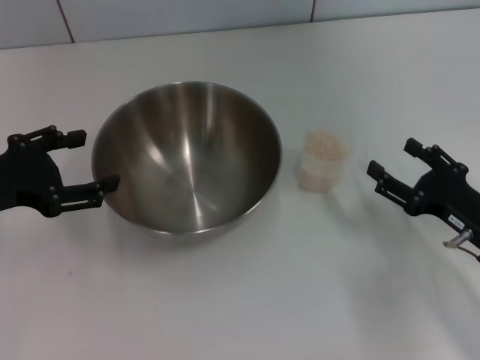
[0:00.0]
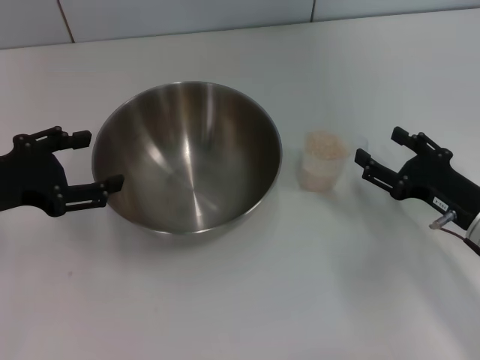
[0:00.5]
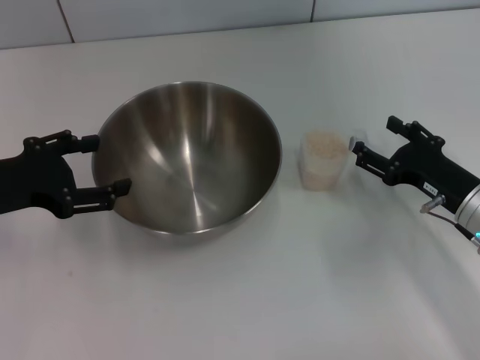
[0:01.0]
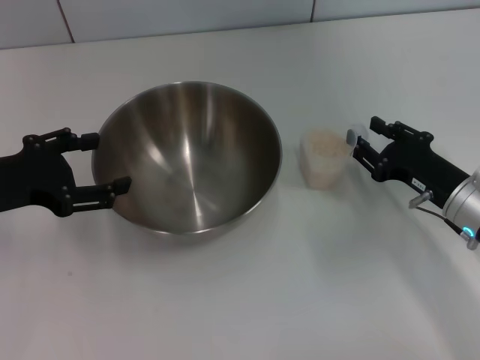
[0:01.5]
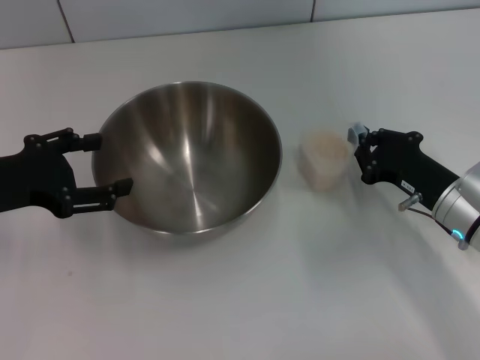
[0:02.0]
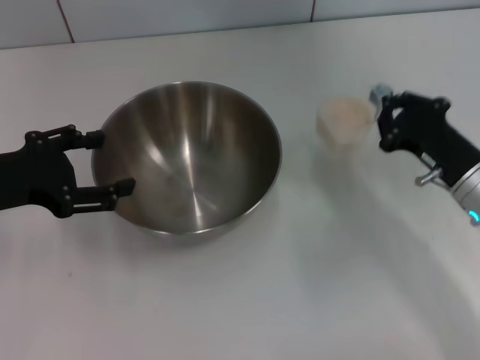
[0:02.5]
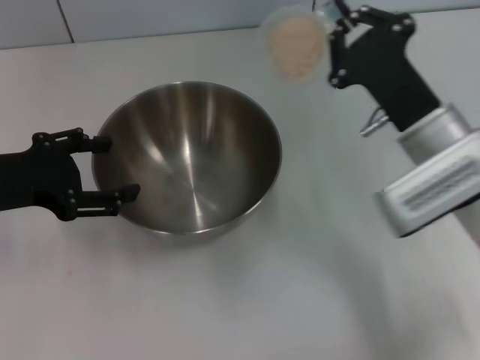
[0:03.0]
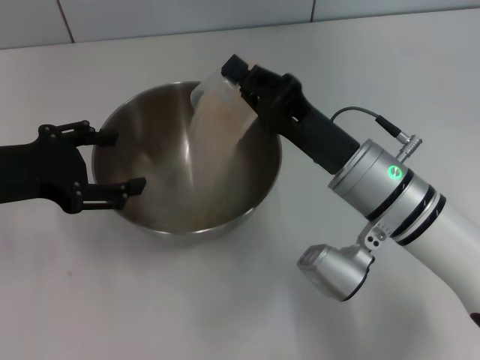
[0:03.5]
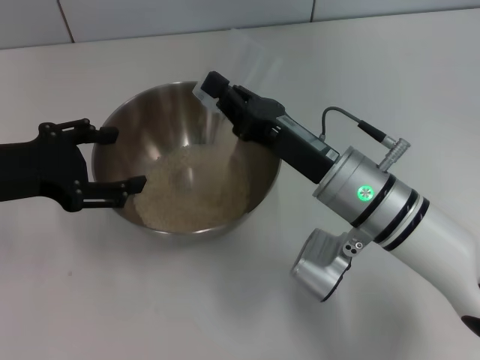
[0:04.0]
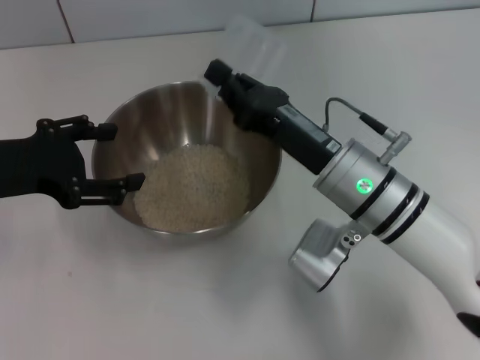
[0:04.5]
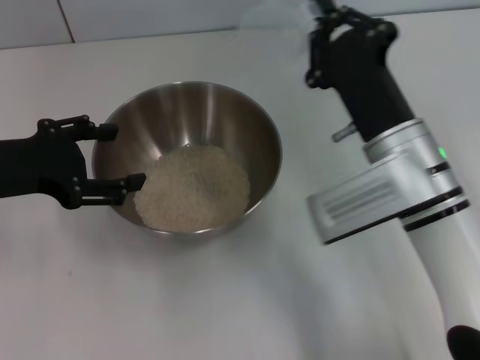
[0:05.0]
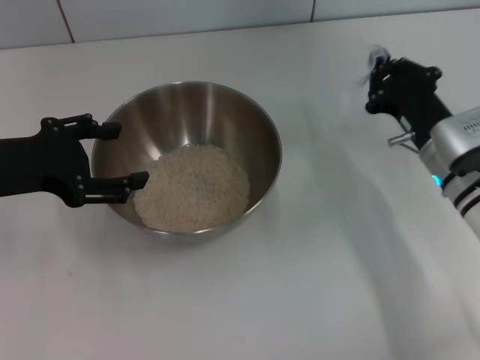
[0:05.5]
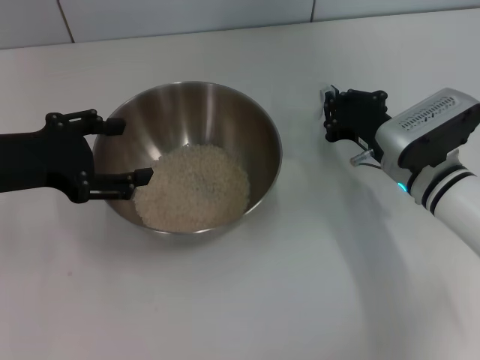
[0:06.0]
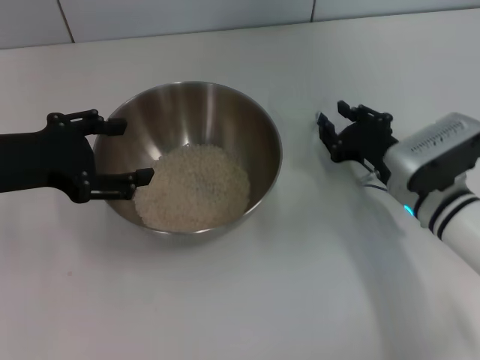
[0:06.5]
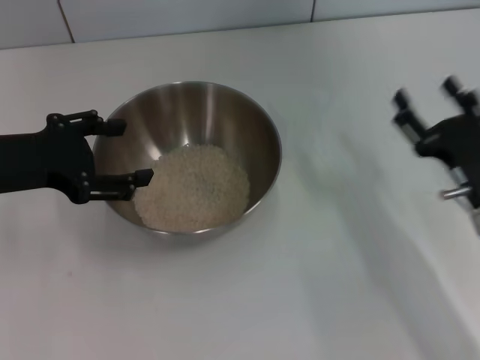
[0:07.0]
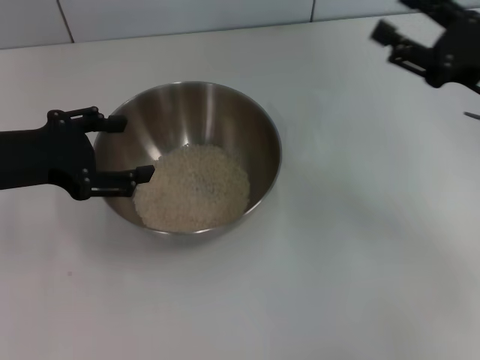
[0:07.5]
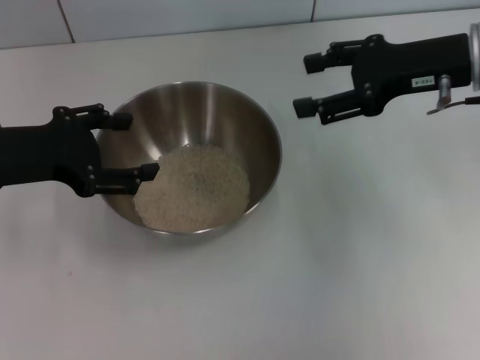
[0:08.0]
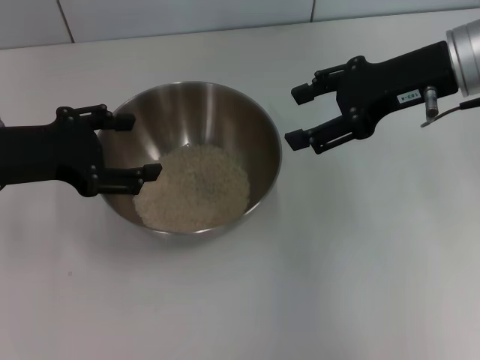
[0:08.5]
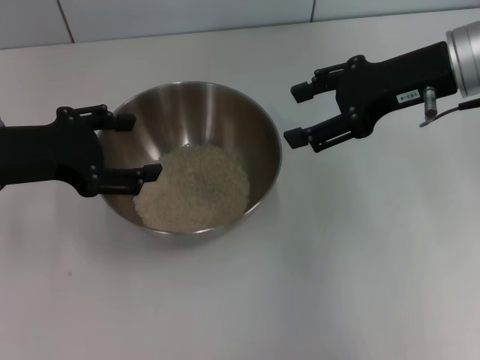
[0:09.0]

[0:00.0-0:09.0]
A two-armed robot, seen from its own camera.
Task of the whole recording: Place the bowl in the middle of the table with one hand and pour the rice from the grain cup into it with the other hand.
Step, 0:00.0 to 0:02.5: Pick up the cup with rice in it with the right gripper.
Step, 0:03.0 to 0:05.0: Pour the rice from the cup into the bowl with the right gripper.
Step, 0:05.5 to 0:06.5: Place the cup on the table with the right gripper.
0:00.0 to 0:02.0: The right gripper travels forward by about 5 cm, and closes its fingers.
0:02.0 to 0:04.5: The right gripper shifts about 15 cm to the left and upward.
0:04.5 to 0:07.0: The right gripper is displaced to the right and backward by about 15 cm, and opens its fingers.
0:07.0 to 0:09.0: The right gripper goes about 20 cm upward and forward.
